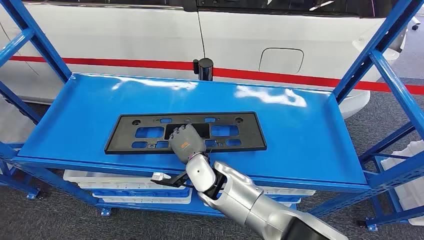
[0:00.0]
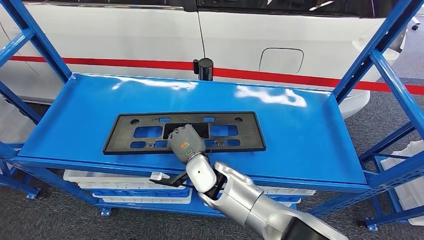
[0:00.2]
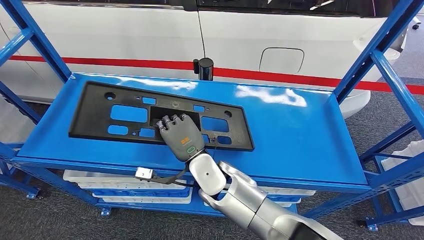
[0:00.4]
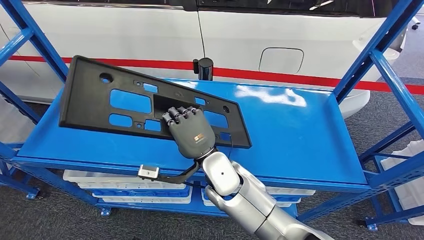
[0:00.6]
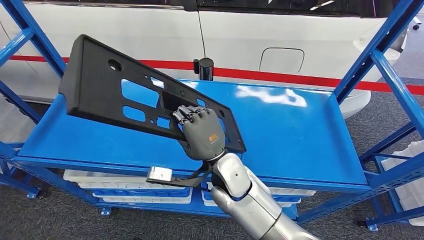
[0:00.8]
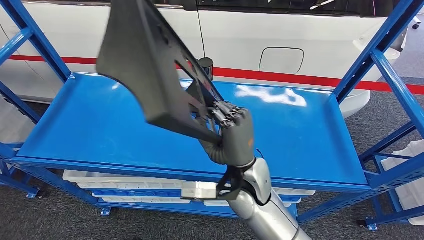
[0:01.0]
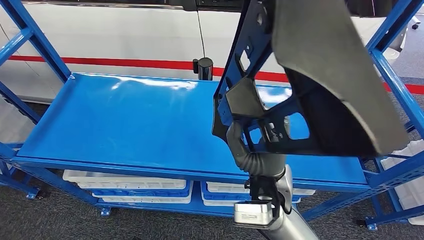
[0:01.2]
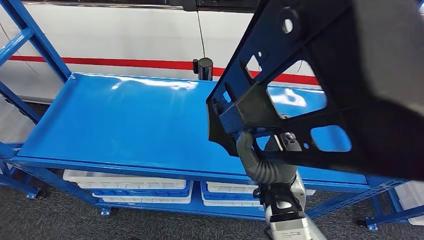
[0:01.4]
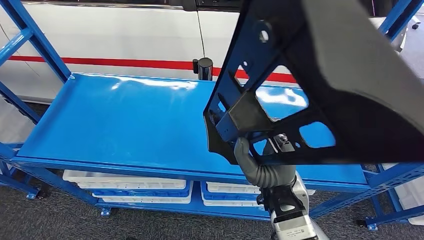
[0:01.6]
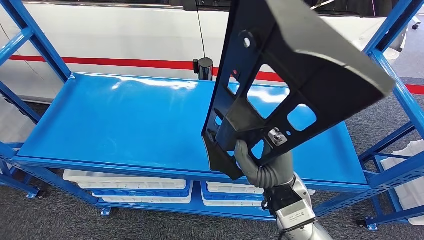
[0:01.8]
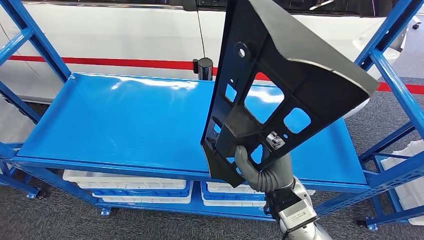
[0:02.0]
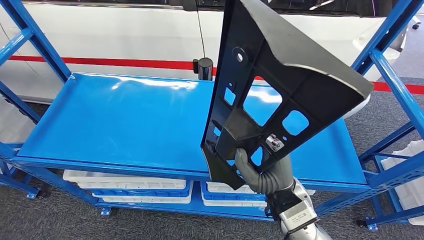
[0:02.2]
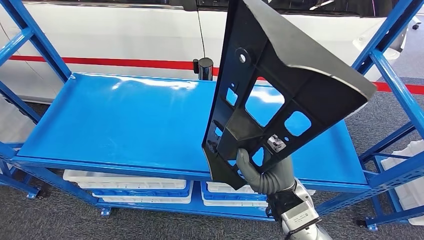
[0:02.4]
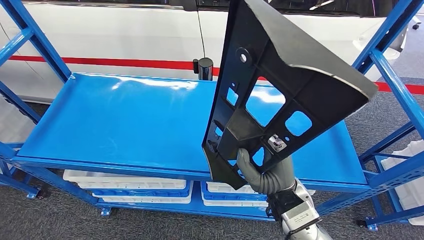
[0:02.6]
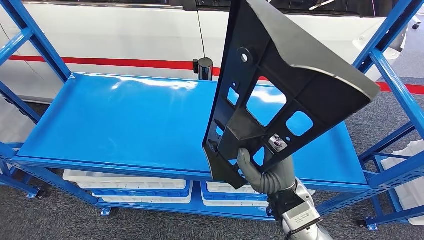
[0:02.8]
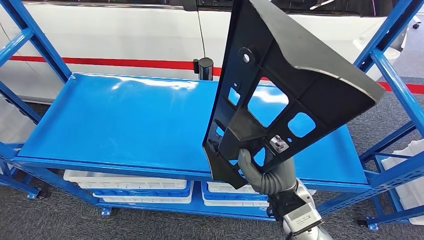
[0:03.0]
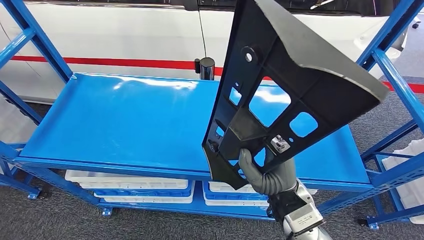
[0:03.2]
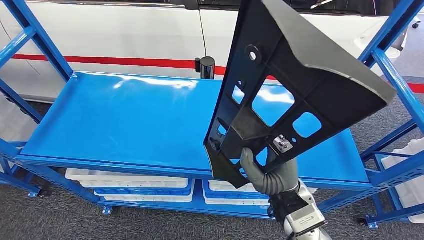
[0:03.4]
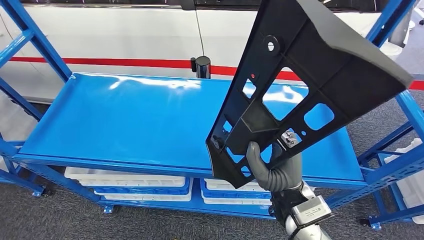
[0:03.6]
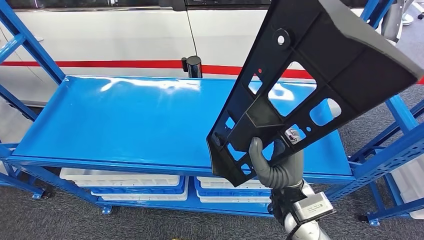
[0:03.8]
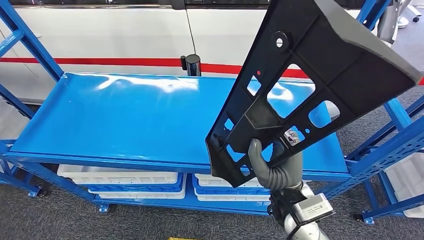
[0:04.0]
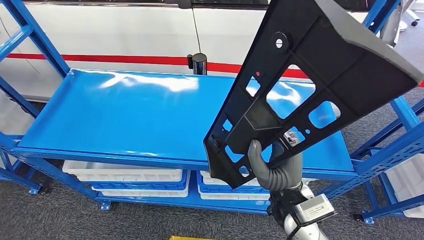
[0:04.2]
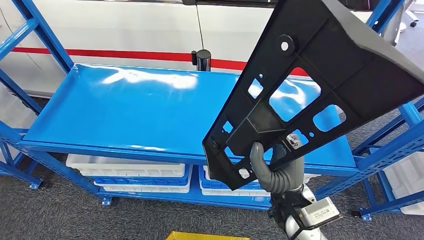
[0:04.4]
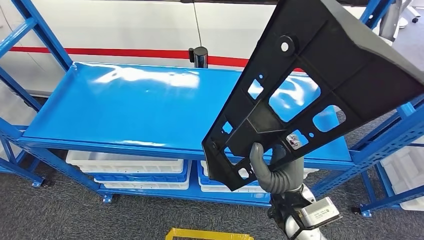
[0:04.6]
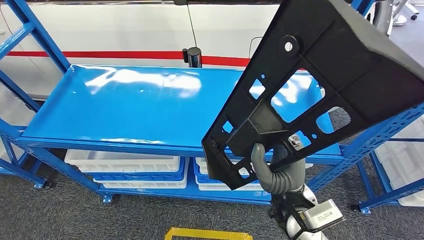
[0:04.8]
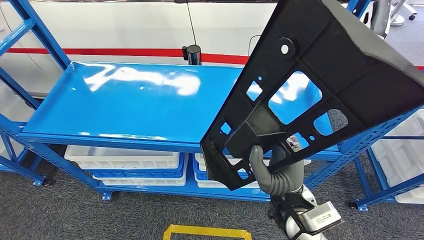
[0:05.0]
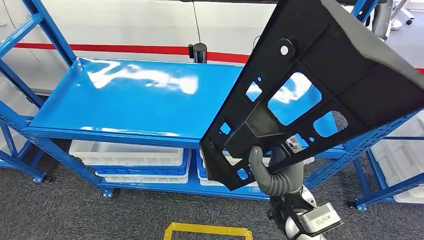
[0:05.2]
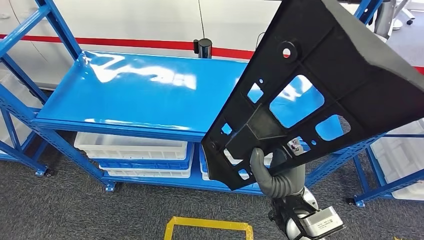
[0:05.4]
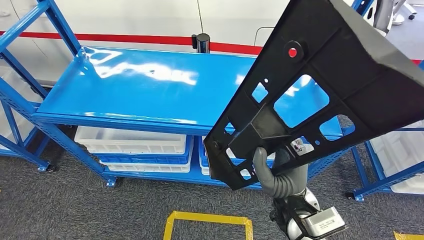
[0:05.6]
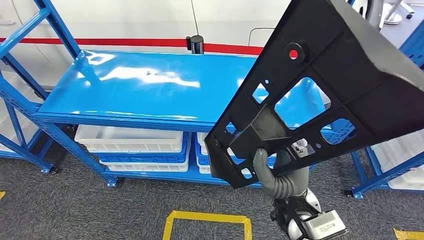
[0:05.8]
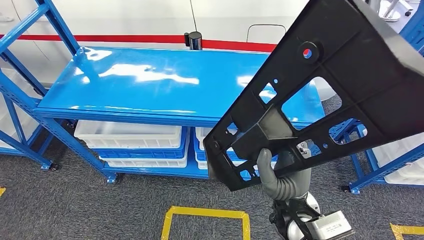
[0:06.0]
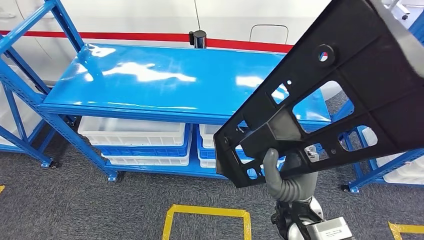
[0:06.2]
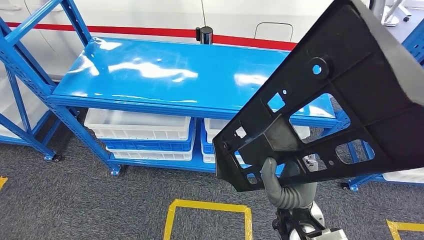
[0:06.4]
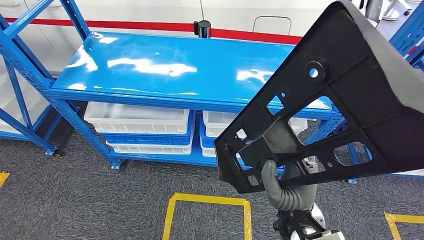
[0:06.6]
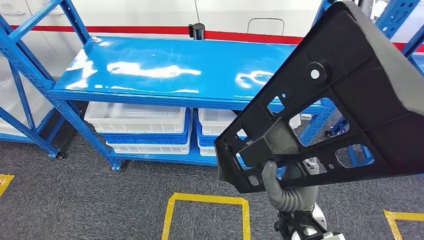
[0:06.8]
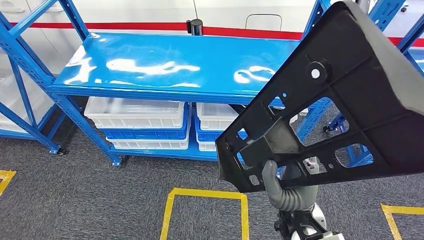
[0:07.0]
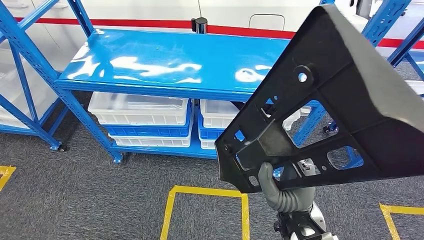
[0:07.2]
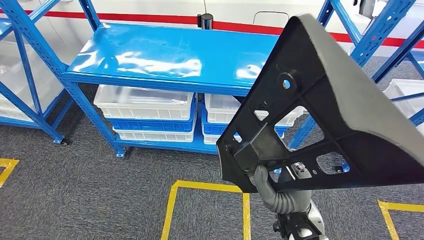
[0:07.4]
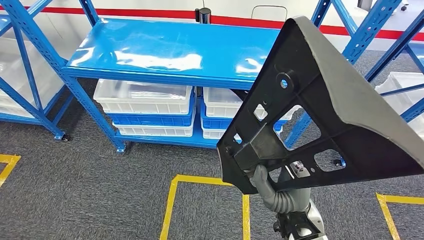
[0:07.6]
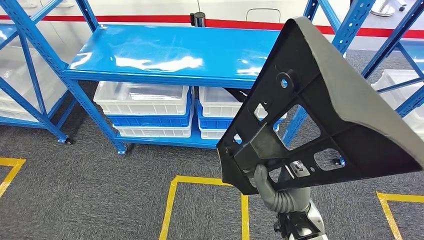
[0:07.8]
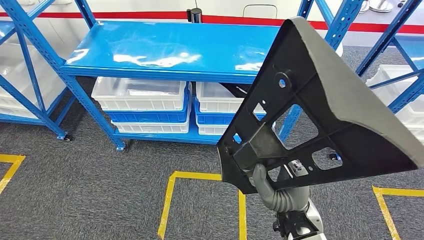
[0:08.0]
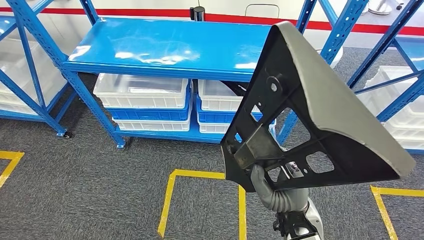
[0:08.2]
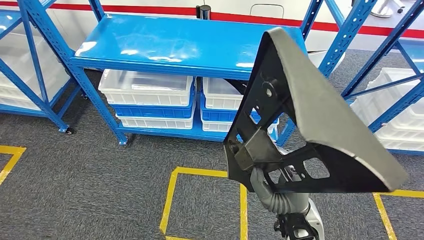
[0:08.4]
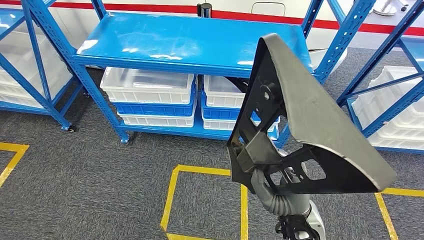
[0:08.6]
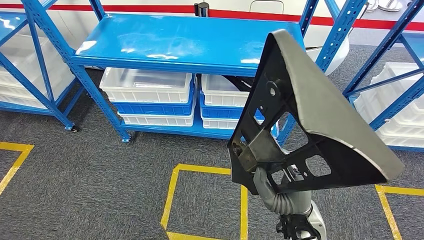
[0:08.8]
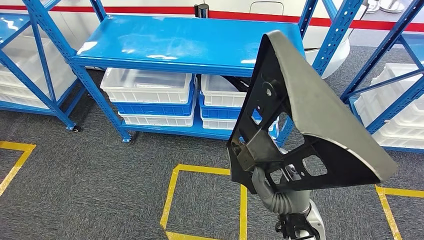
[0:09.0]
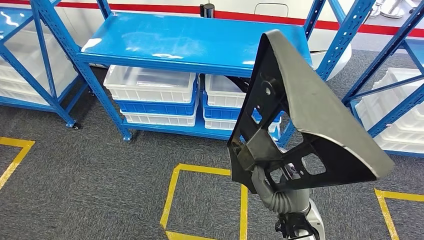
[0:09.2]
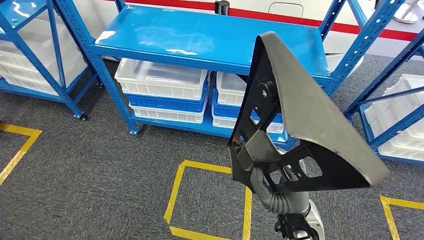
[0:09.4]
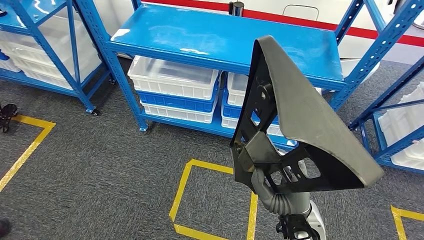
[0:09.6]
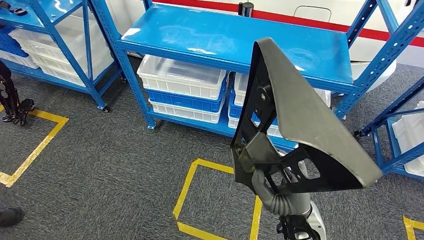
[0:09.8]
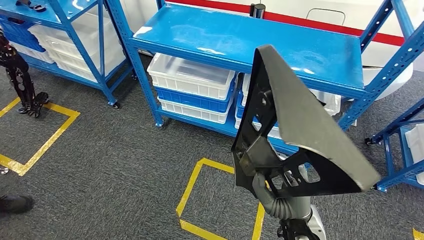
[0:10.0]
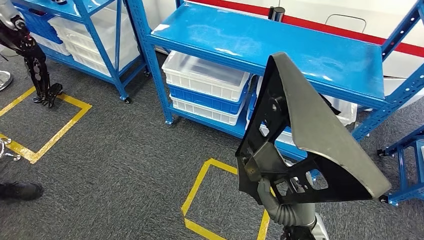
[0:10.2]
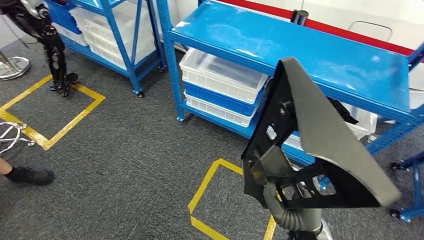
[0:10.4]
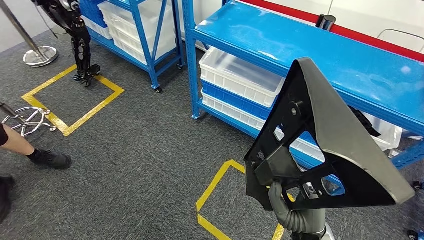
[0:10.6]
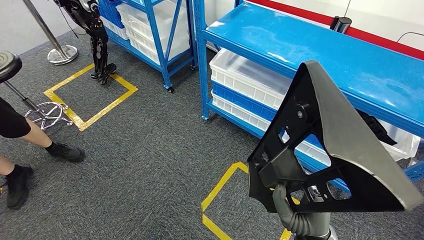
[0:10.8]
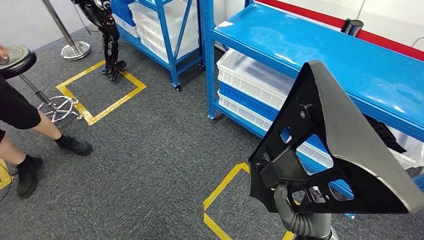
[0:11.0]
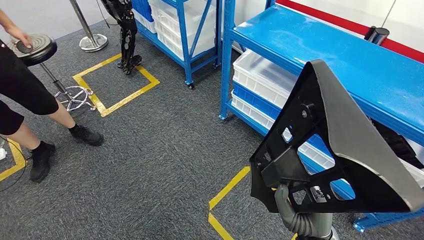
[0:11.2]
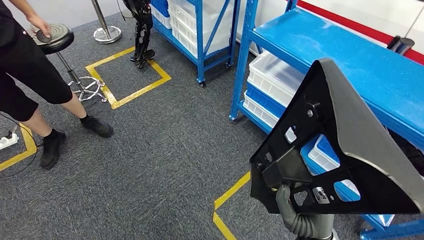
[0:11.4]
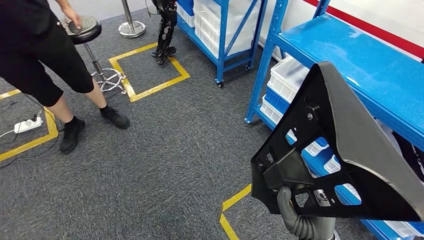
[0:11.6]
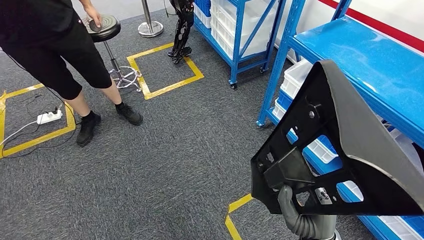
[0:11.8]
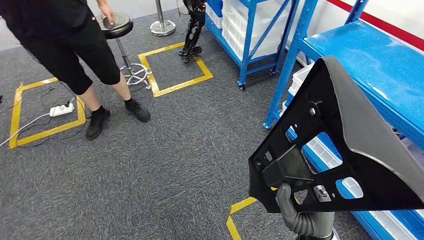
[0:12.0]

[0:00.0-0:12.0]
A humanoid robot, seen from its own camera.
Step, 0:00.0 to 0:06.2: Pick up the large material from the shelf.

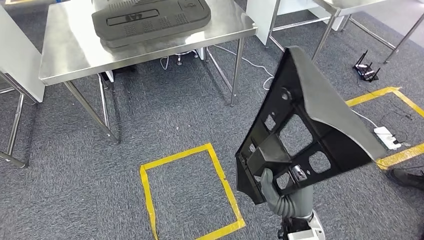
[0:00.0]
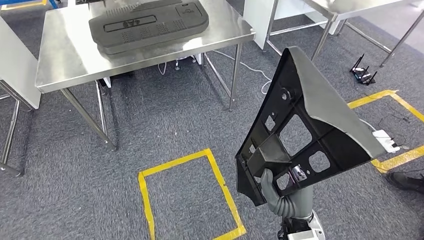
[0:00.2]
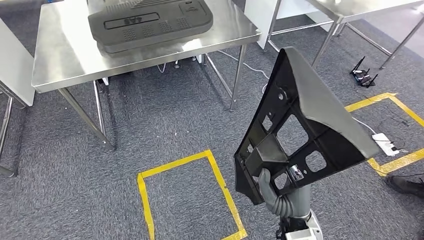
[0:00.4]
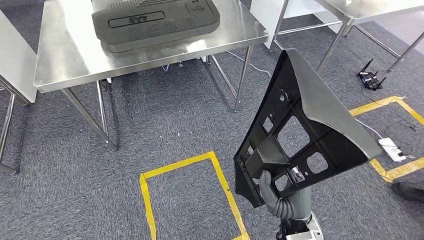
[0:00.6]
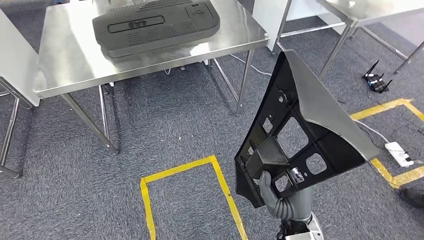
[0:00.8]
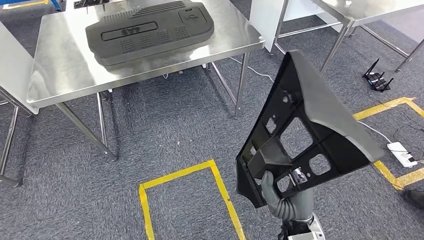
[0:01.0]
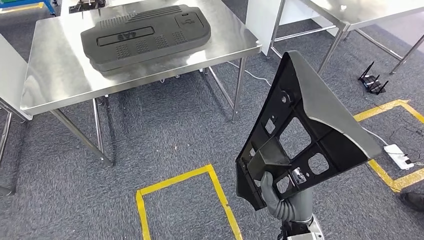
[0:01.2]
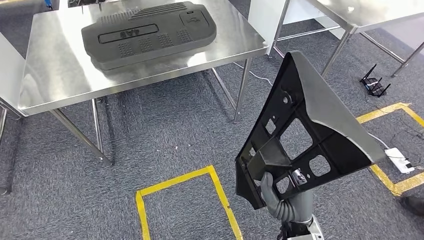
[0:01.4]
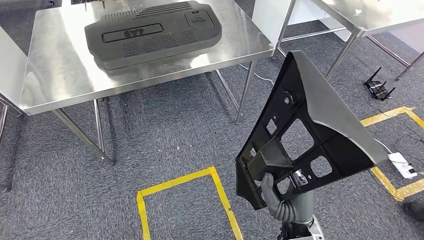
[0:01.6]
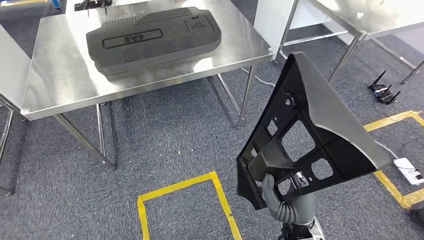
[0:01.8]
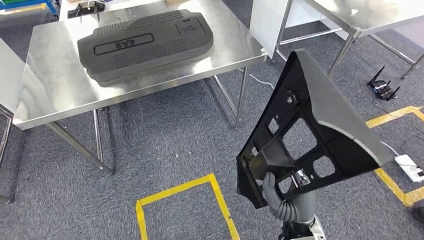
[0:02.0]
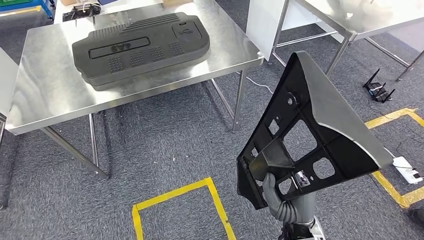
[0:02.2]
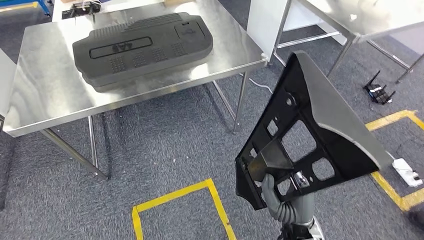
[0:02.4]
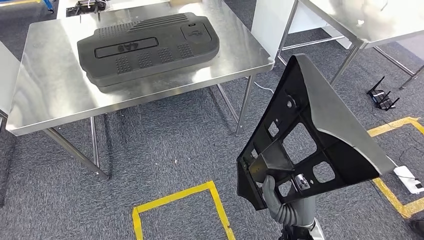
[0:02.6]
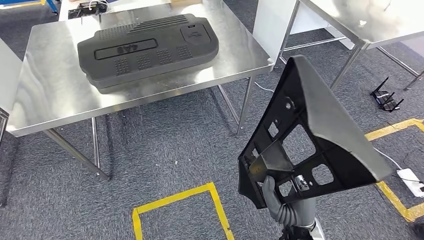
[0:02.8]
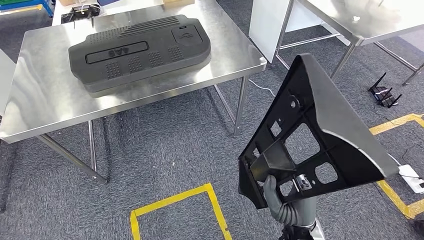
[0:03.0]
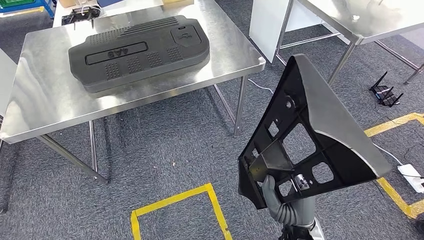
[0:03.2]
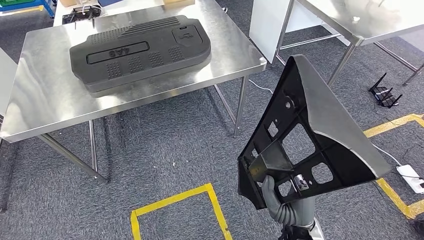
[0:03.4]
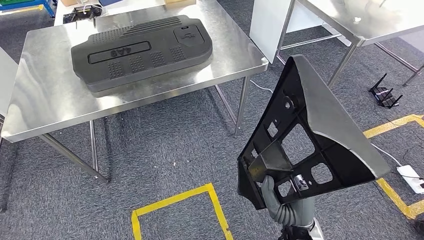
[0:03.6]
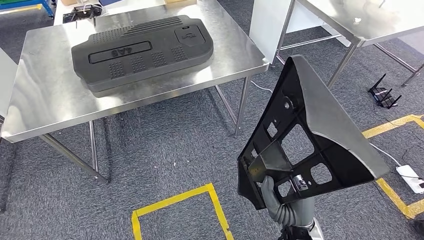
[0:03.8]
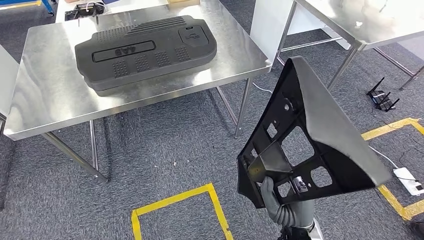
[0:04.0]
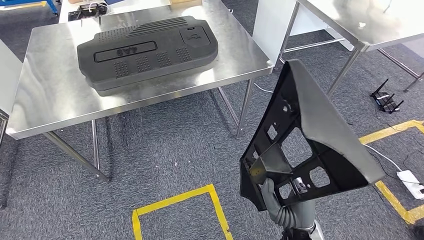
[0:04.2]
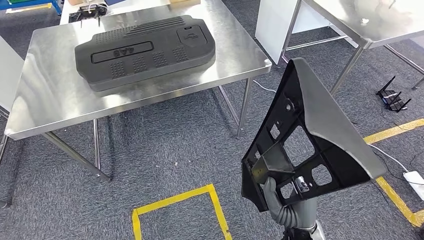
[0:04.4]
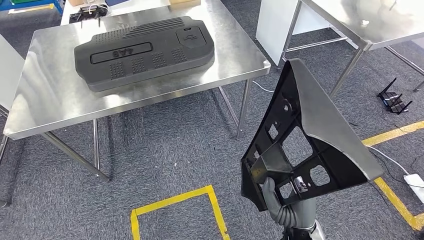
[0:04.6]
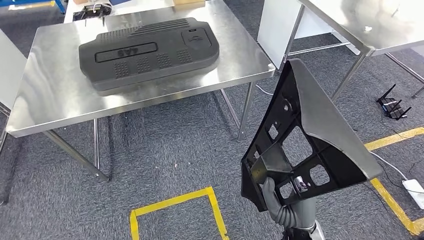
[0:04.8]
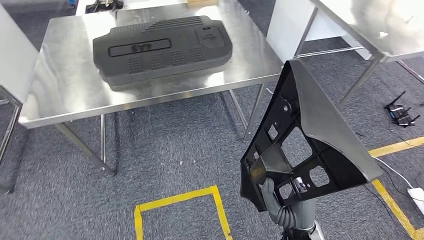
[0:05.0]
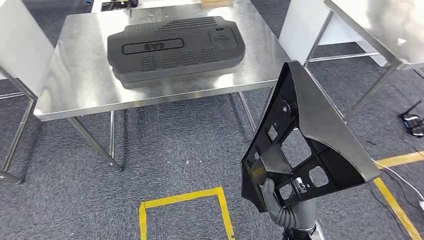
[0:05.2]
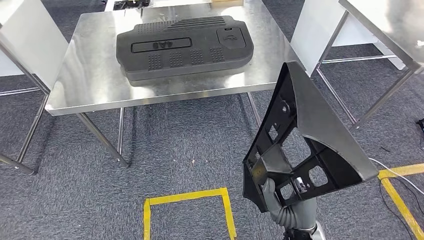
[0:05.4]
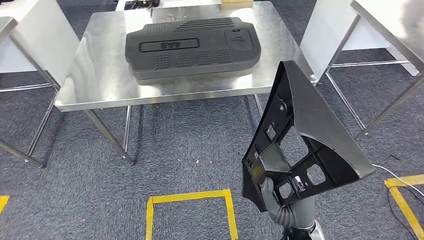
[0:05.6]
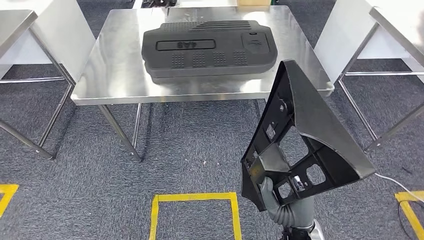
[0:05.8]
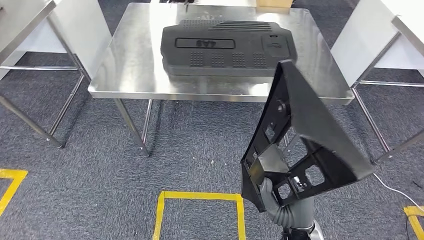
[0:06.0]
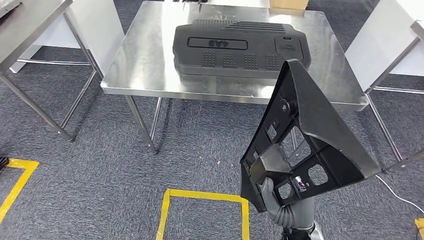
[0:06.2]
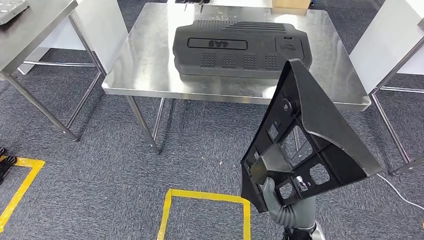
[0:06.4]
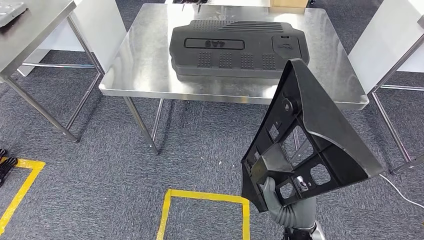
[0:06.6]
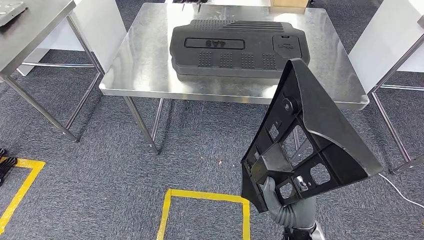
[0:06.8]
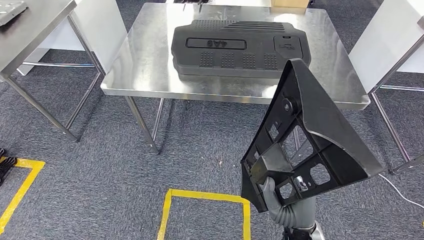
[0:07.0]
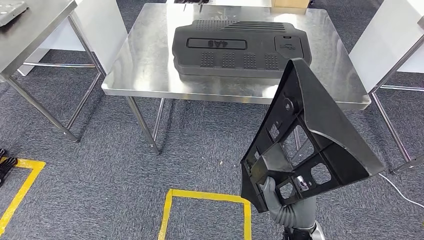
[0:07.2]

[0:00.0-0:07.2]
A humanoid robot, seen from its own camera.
0:02.8 to 0:04.4: Neither hand changes place.
